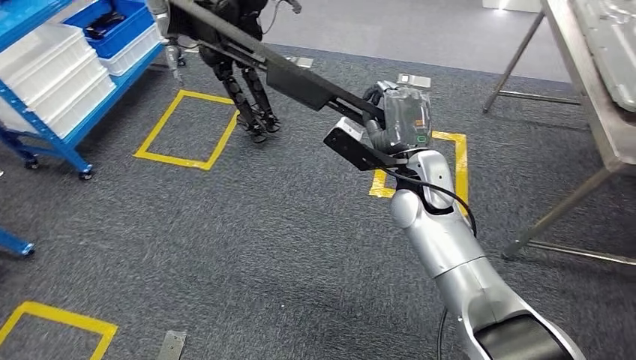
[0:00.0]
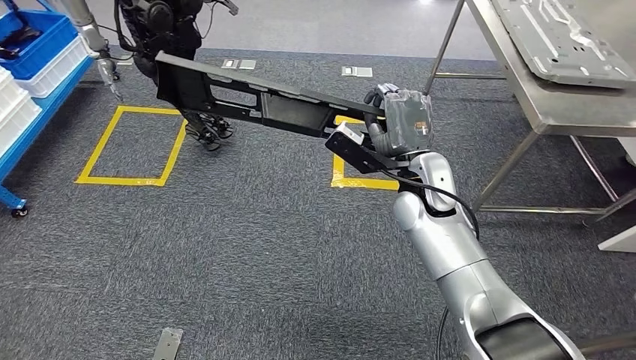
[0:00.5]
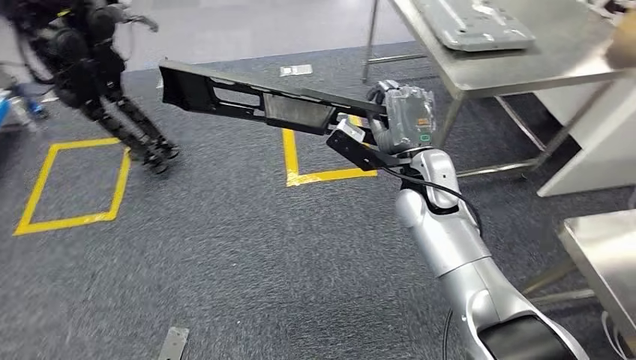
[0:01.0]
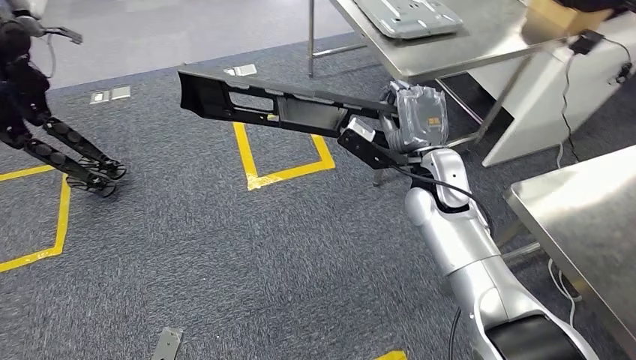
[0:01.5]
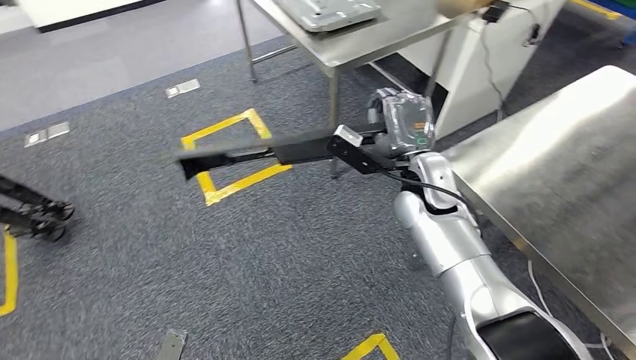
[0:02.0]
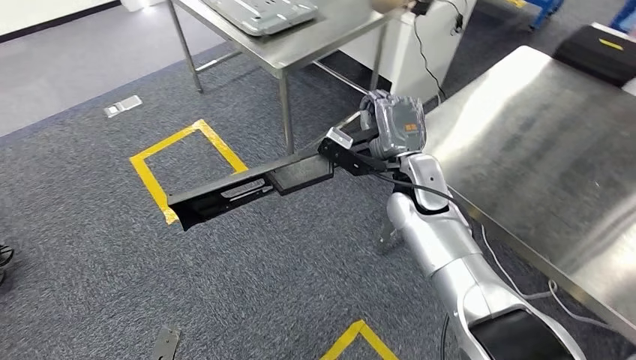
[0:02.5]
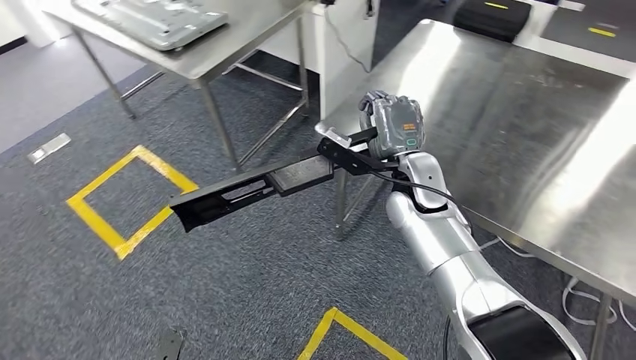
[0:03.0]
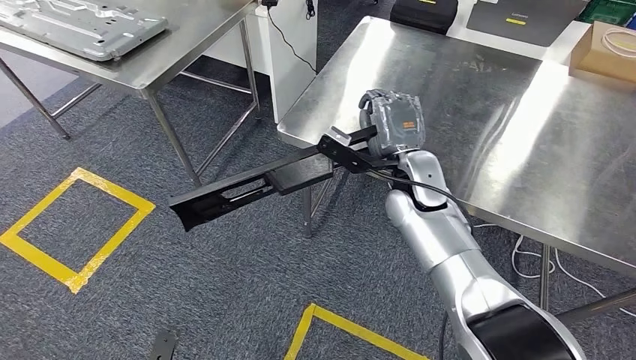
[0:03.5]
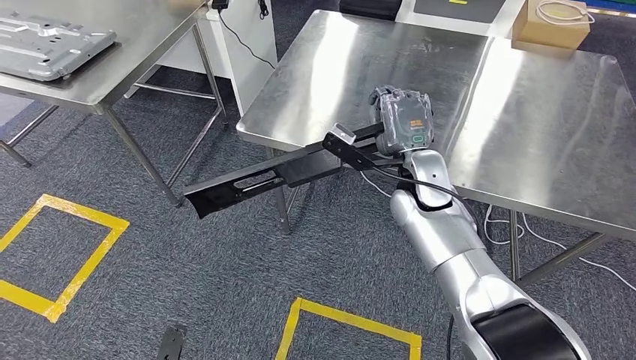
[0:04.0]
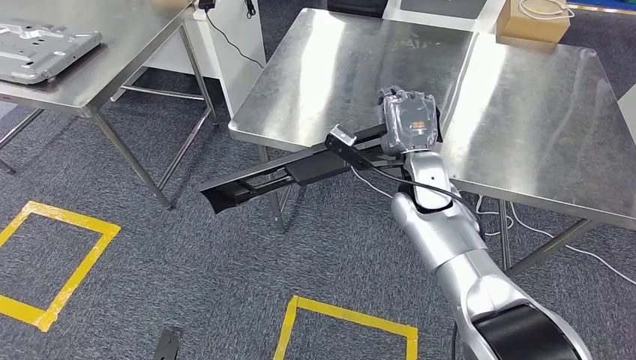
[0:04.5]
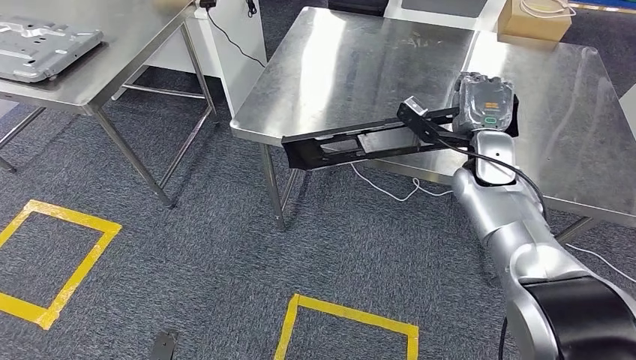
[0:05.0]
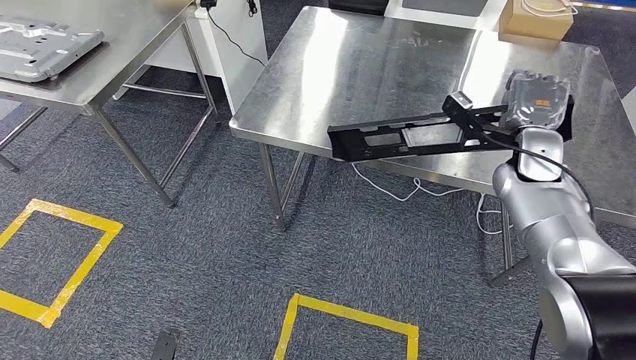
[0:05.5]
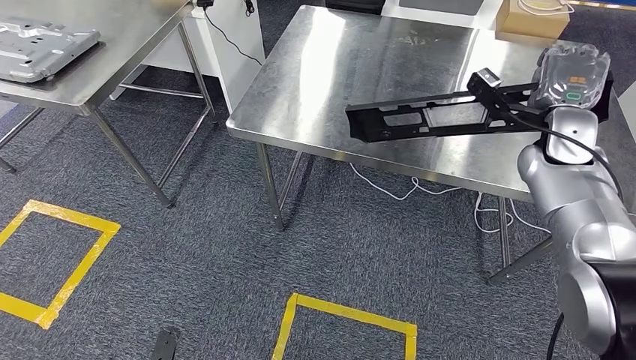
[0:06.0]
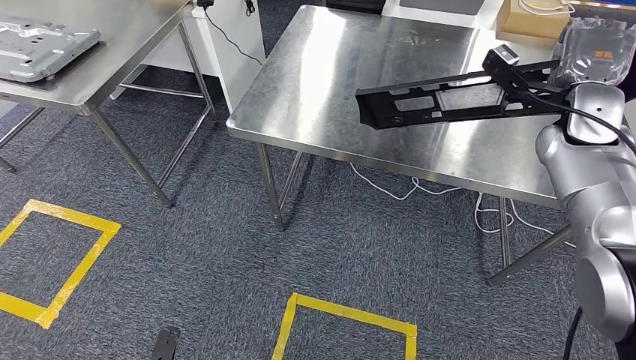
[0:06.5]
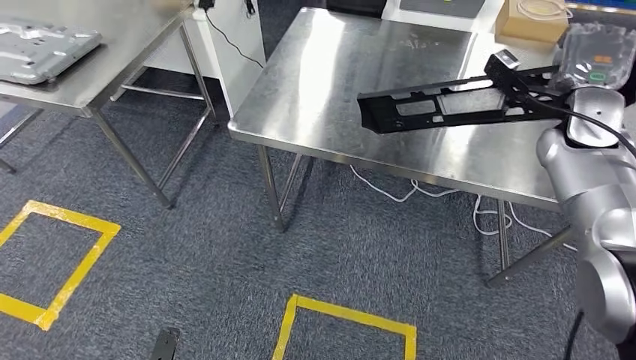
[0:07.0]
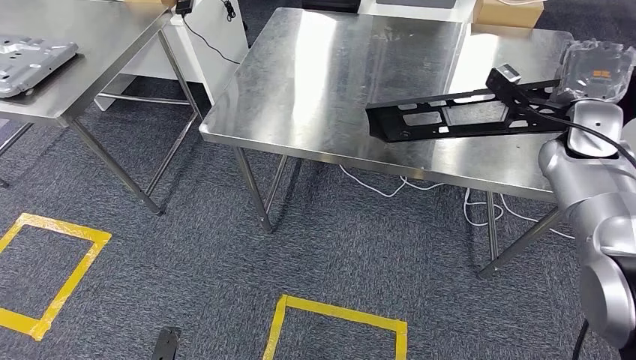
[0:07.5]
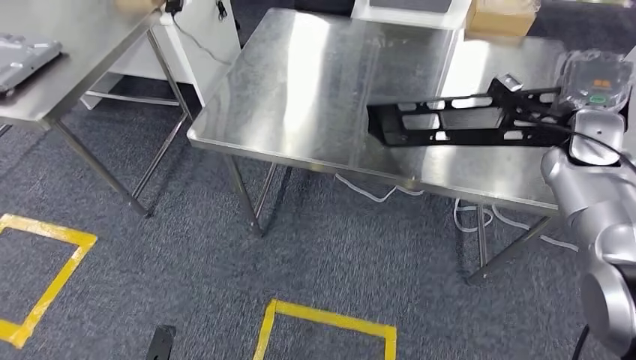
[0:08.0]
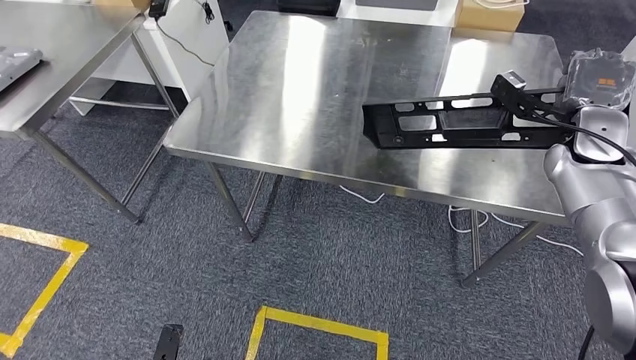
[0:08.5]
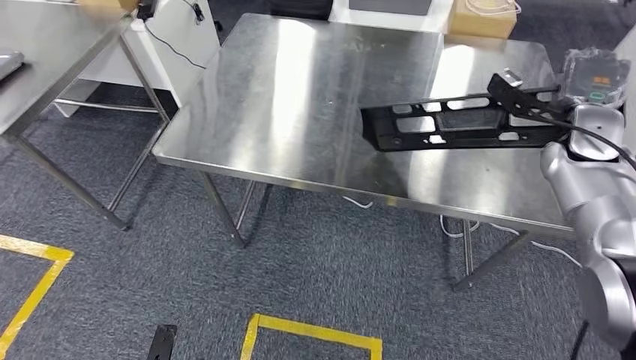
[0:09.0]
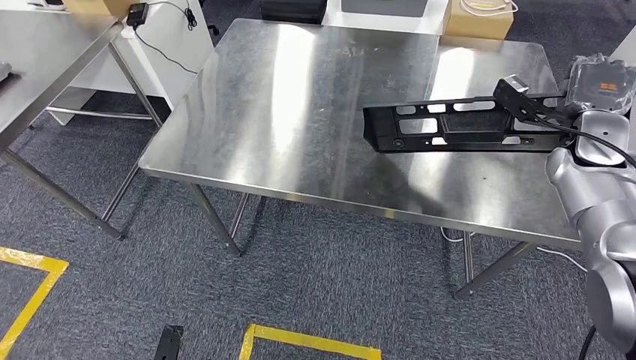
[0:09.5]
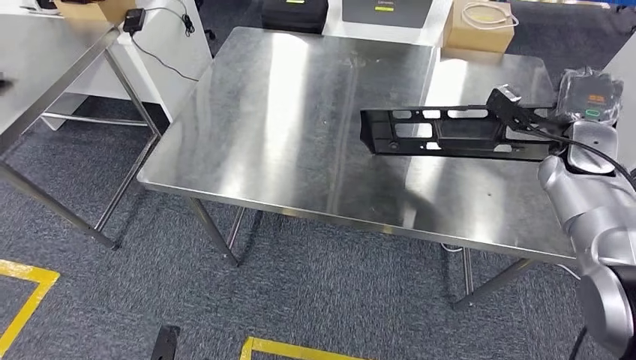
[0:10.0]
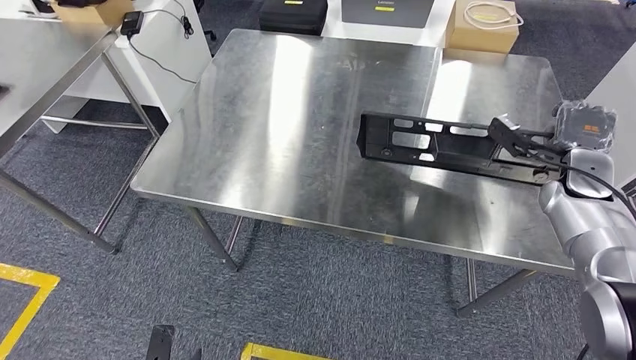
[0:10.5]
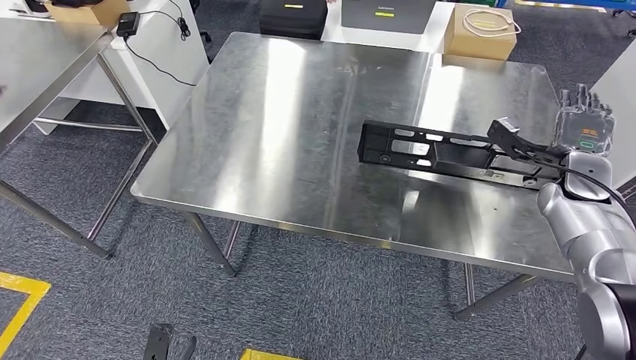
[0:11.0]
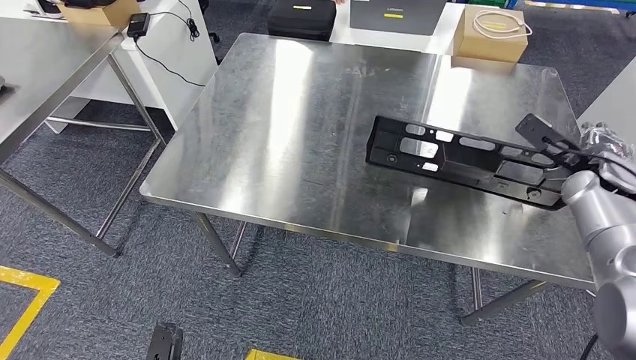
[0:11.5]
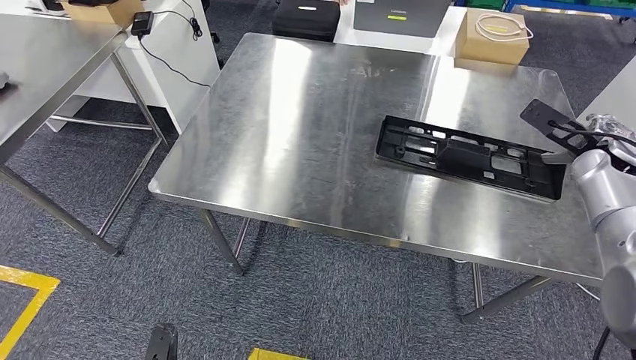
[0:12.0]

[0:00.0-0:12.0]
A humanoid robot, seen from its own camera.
Step, 0:00.0 to 0:03.0: Move the large material to the front of the workbench.

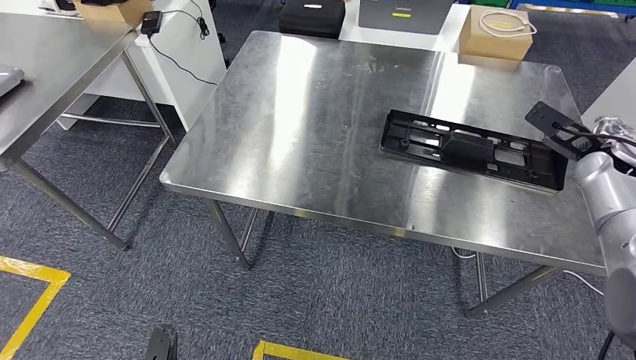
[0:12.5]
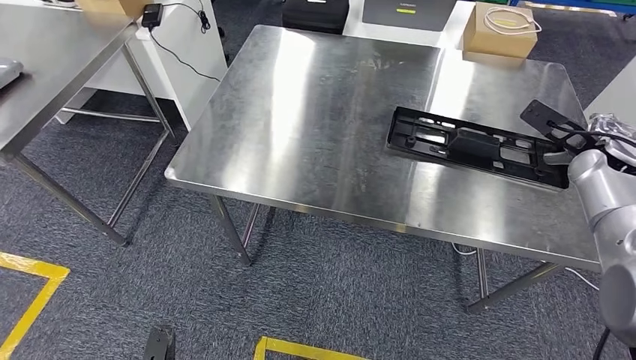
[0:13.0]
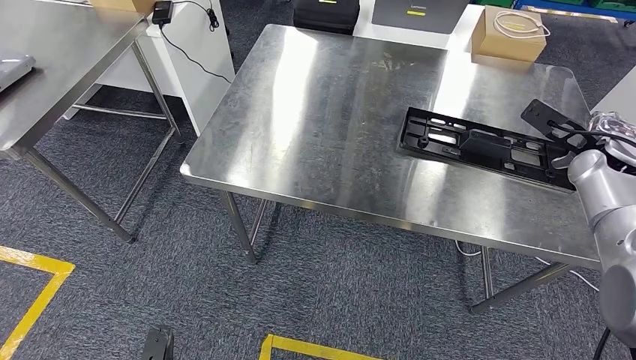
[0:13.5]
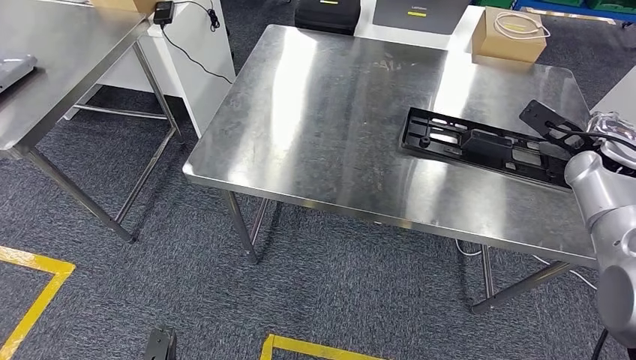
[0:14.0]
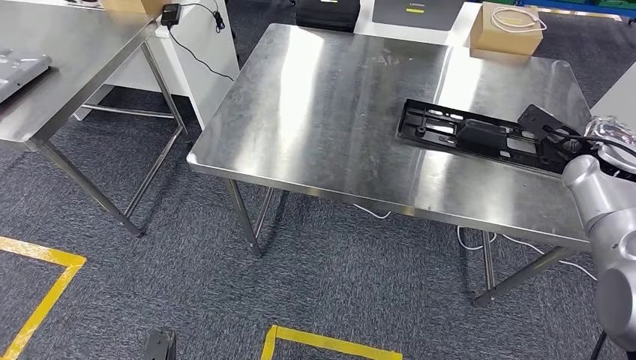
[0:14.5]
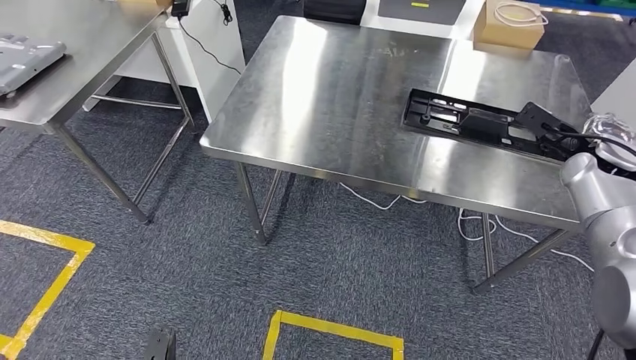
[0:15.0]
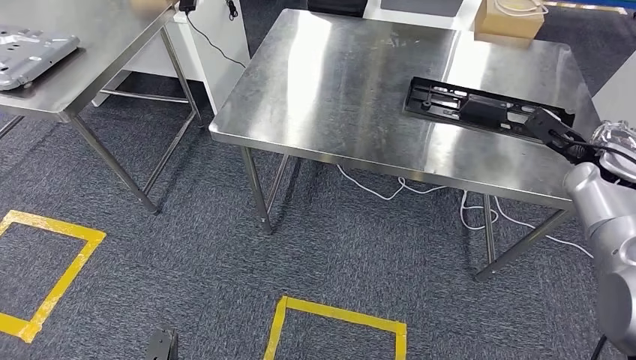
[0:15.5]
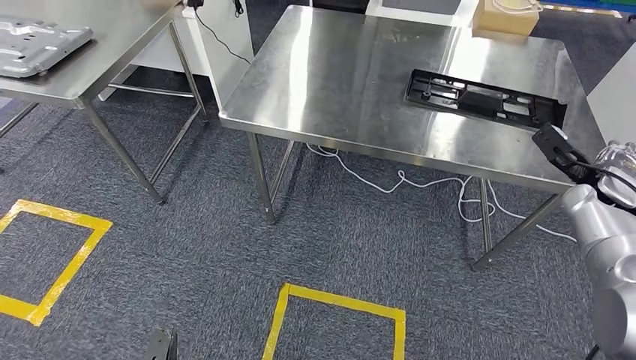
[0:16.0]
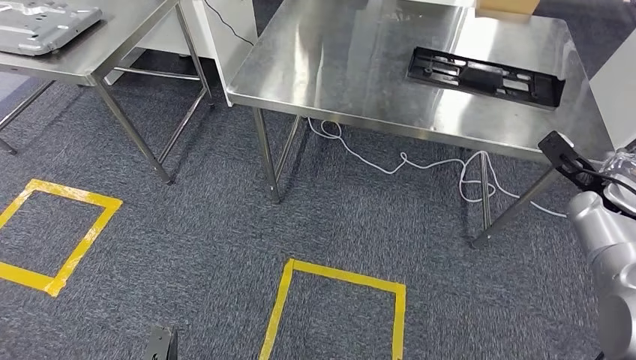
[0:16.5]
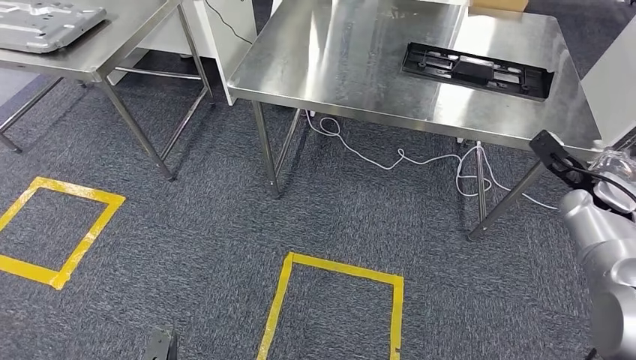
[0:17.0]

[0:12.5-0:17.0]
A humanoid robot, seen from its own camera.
Step, 0:13.5 to 0:17.0: Move to the initial position of the shelf.
